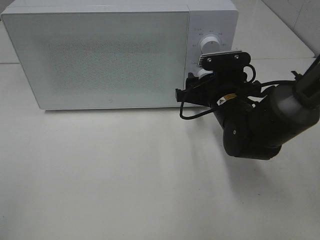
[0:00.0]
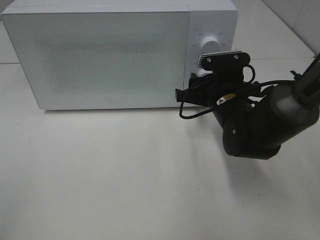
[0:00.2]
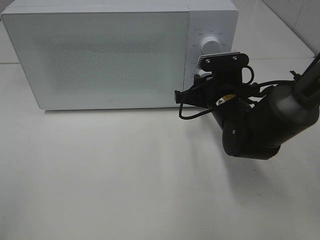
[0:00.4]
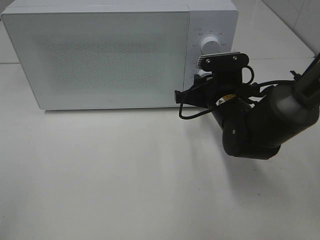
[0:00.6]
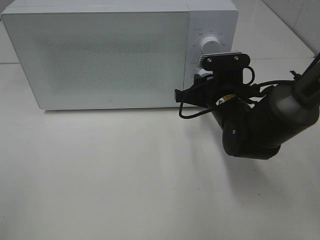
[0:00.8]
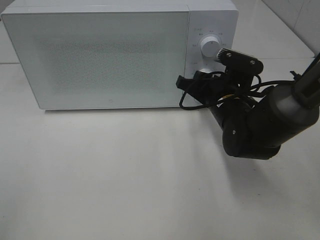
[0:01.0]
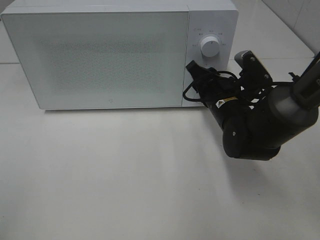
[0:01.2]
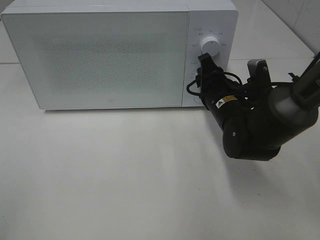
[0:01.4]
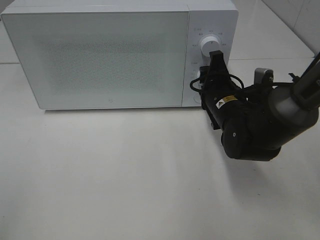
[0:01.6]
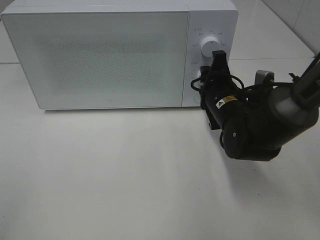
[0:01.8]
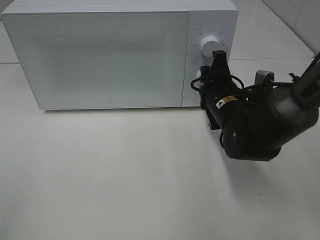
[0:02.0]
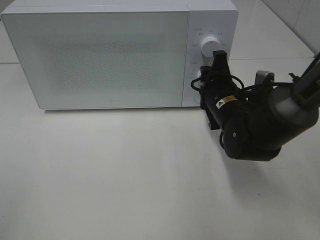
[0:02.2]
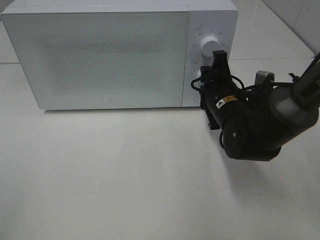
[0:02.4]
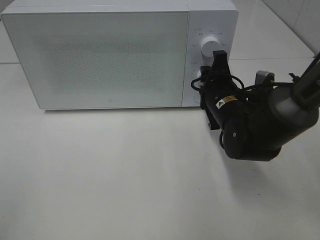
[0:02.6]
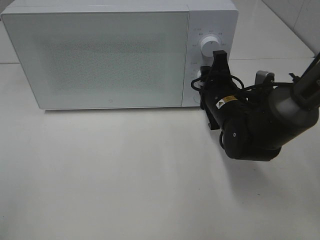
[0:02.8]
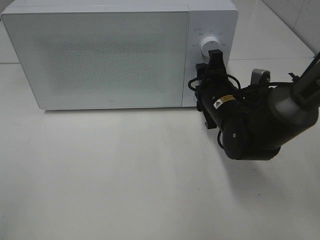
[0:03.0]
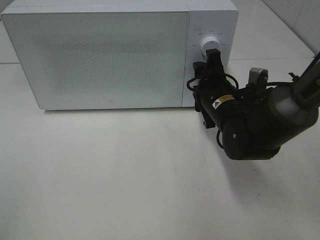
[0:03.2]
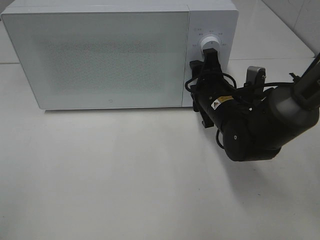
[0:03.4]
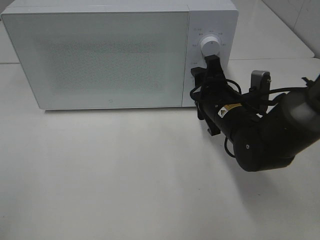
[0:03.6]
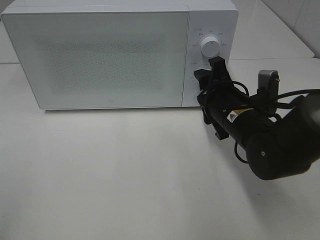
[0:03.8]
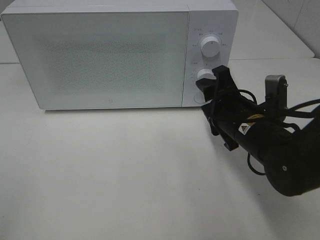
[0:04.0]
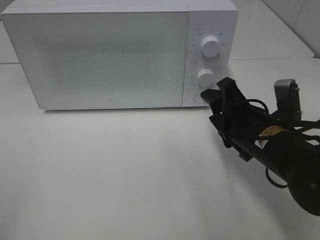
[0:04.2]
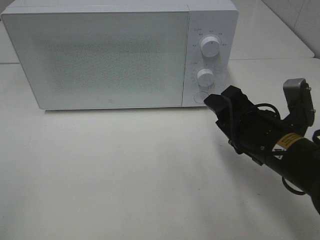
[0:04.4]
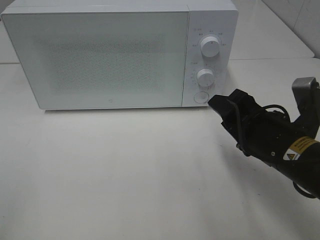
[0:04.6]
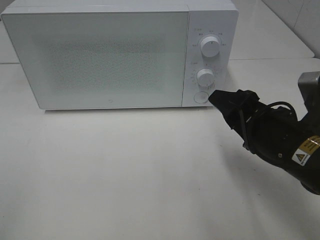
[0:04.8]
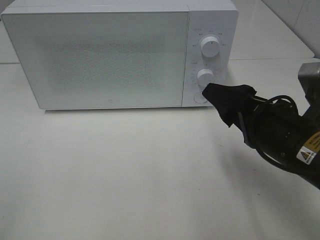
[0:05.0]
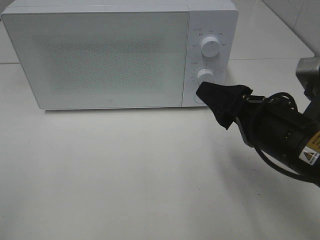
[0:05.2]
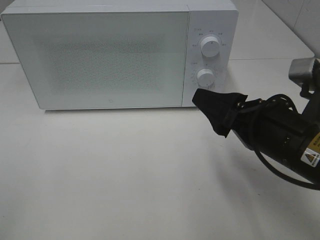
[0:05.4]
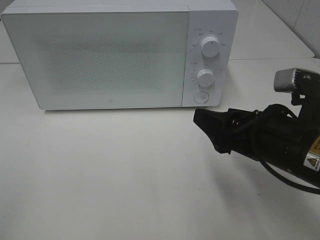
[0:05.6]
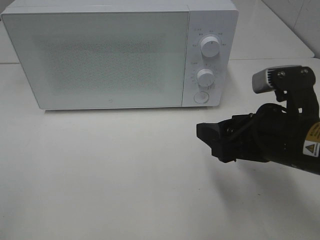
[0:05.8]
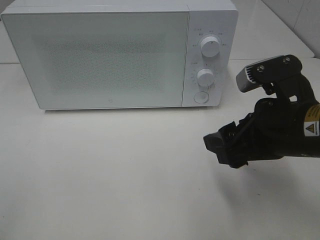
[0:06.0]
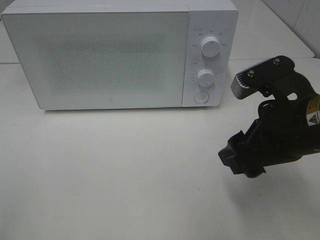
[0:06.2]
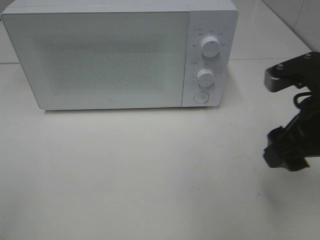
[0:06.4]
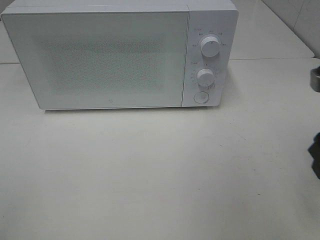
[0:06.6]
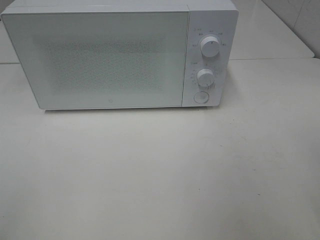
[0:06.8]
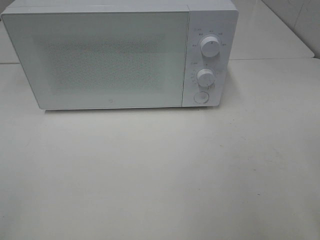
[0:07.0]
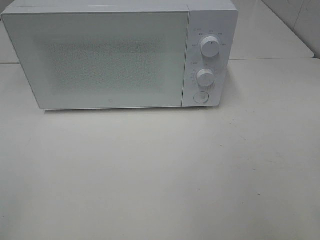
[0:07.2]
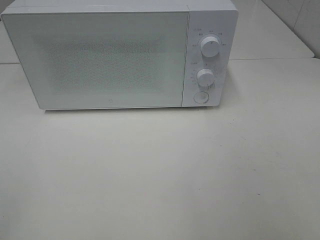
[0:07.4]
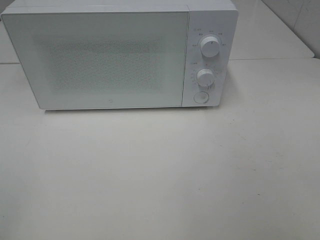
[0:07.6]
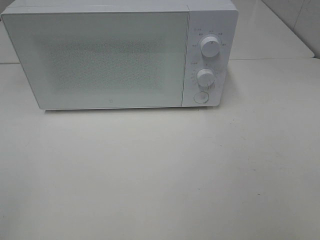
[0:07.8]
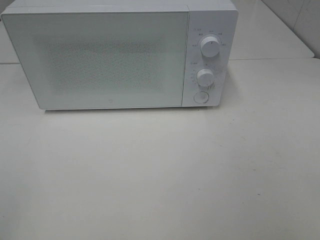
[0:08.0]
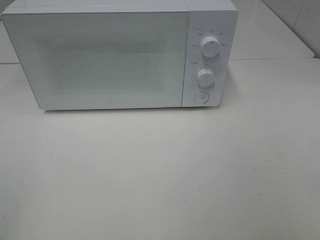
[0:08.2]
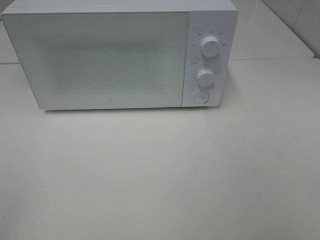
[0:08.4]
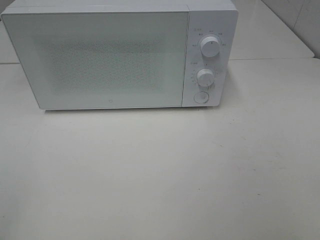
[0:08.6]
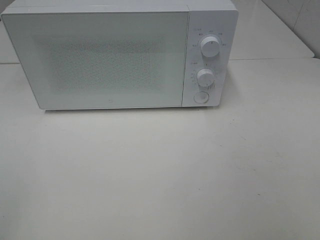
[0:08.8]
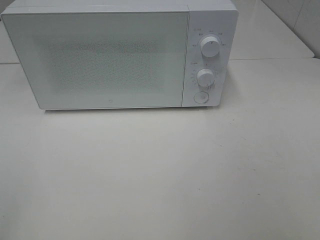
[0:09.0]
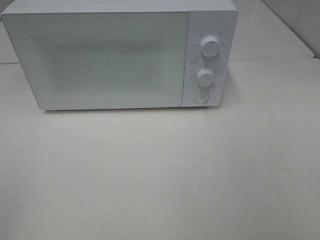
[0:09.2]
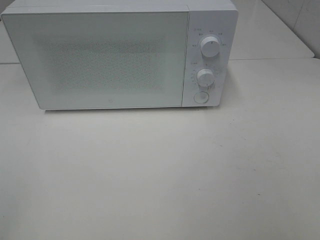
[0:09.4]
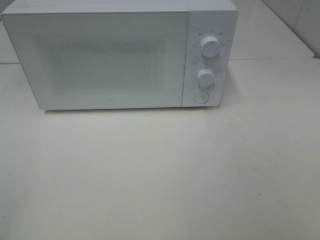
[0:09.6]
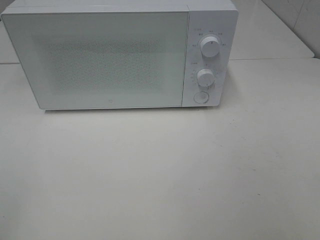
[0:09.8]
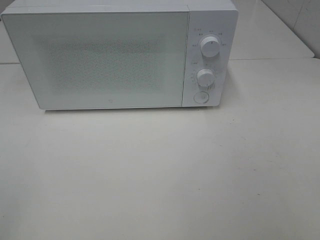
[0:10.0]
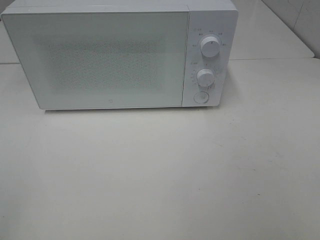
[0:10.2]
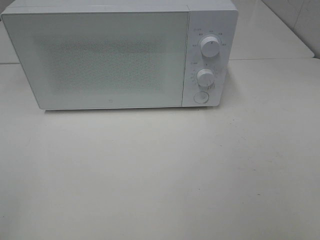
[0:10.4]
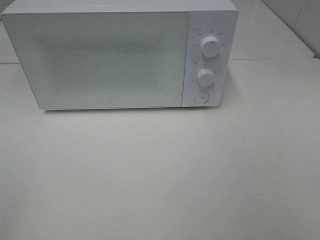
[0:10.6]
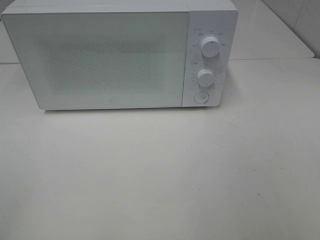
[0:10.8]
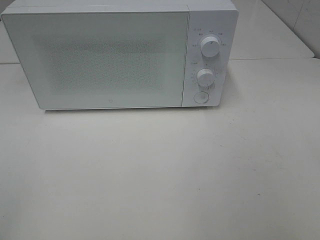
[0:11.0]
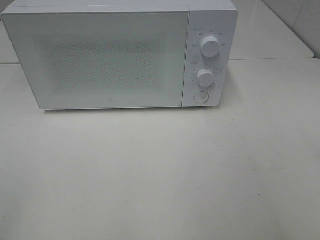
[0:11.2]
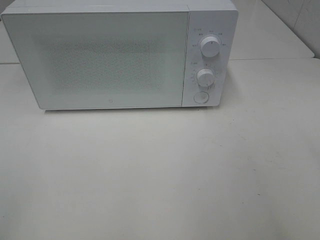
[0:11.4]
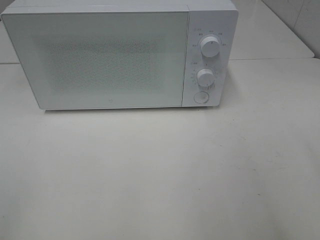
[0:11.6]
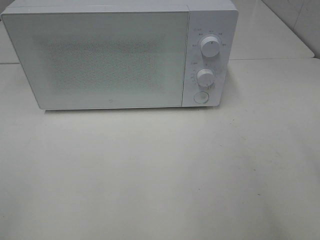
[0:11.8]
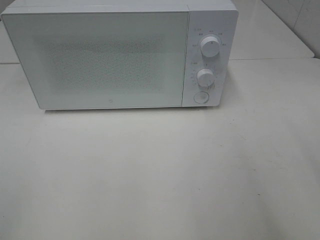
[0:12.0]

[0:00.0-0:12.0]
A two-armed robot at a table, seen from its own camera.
Task of the whole recording: Heat Sandwich.
Step, 0:00.0 to 0:03.8: Right hand: twist timer button.
0:00.0 to 0:01.6: The right gripper closes.
0:01.6 to 0:03.0: The two grippers keep their place.
0:03.0 to 0:04.4: The right gripper moves backward, approximately 10 cm.
0:04.4 to 0:06.0: The right gripper travels upward by about 5 cm.
0:06.0 to 0:07.6: The right gripper travels backward, to the right and upward by roughly 20 cm.
0:09.0 to 0:10.4: The two grippers keep their place.

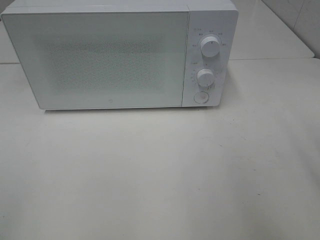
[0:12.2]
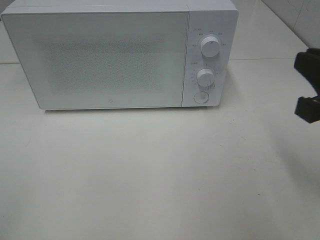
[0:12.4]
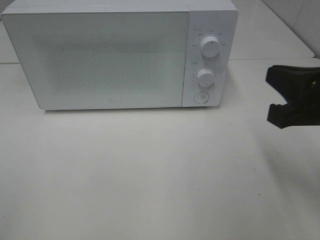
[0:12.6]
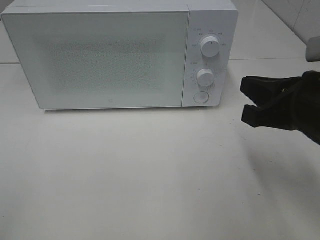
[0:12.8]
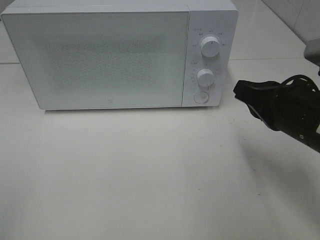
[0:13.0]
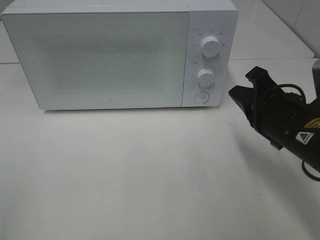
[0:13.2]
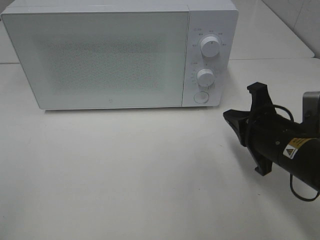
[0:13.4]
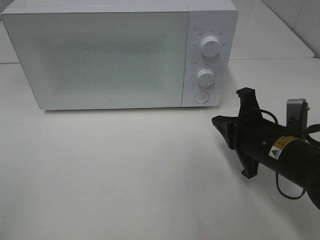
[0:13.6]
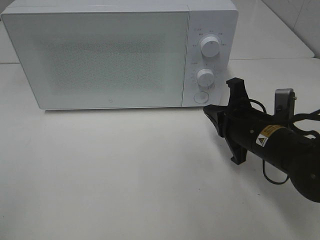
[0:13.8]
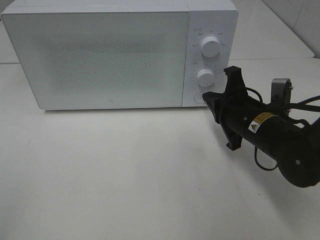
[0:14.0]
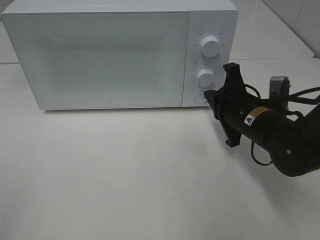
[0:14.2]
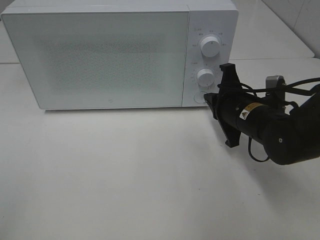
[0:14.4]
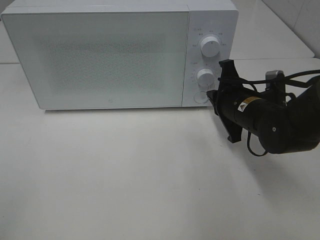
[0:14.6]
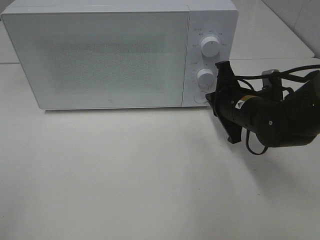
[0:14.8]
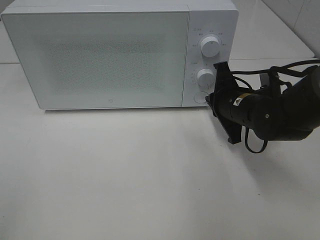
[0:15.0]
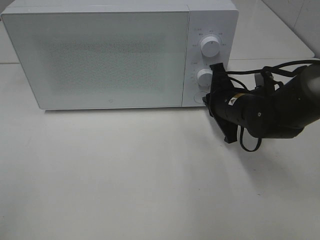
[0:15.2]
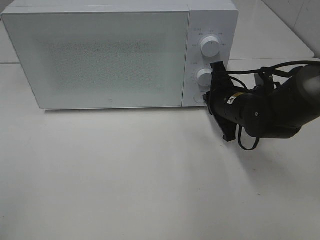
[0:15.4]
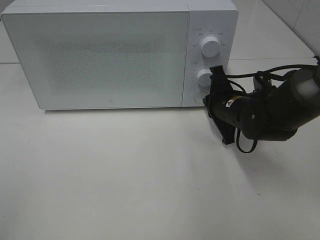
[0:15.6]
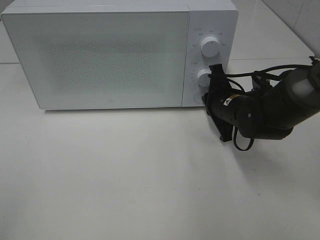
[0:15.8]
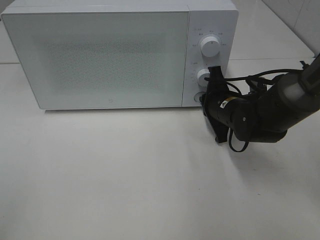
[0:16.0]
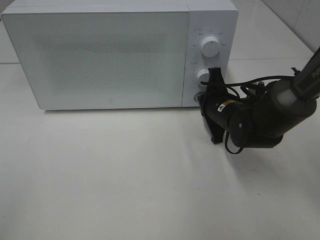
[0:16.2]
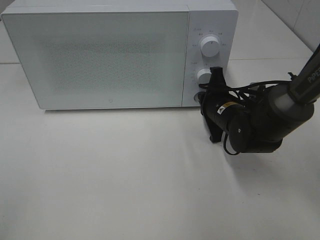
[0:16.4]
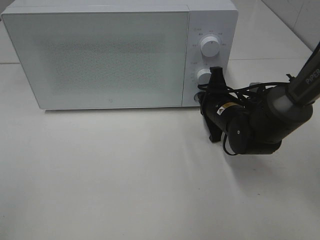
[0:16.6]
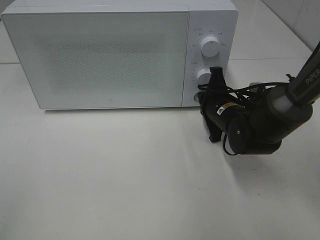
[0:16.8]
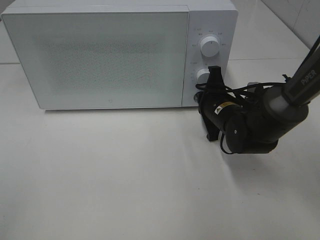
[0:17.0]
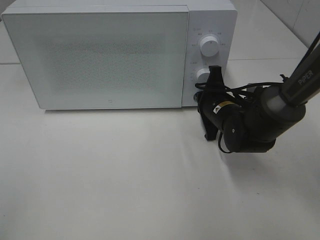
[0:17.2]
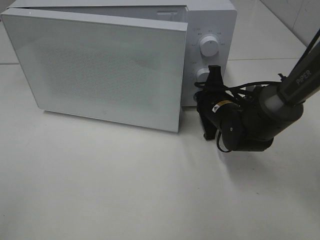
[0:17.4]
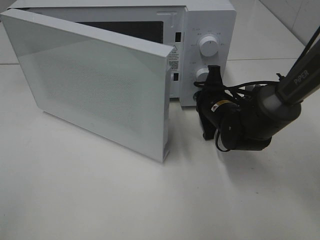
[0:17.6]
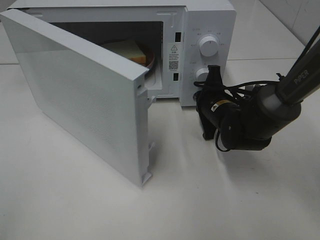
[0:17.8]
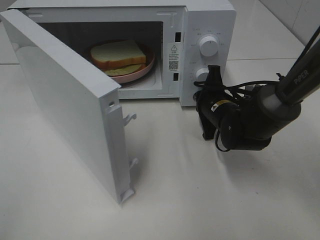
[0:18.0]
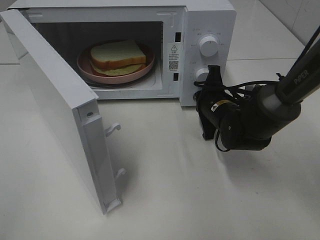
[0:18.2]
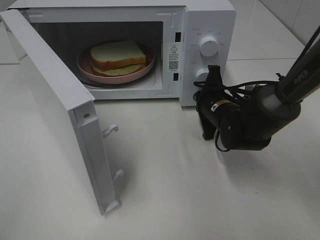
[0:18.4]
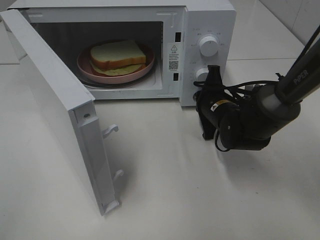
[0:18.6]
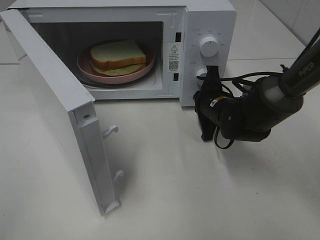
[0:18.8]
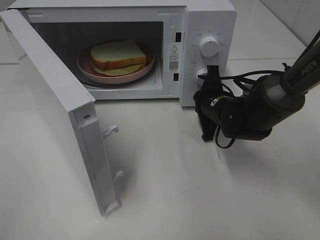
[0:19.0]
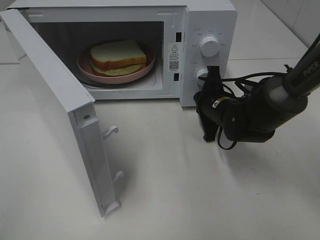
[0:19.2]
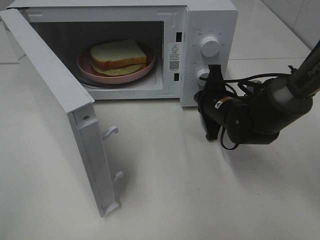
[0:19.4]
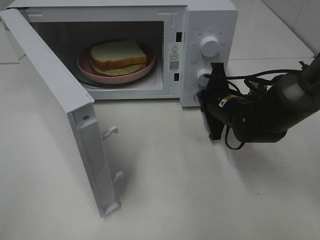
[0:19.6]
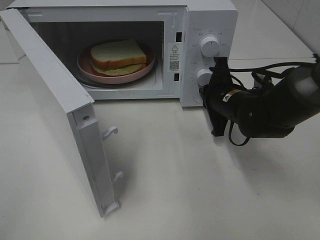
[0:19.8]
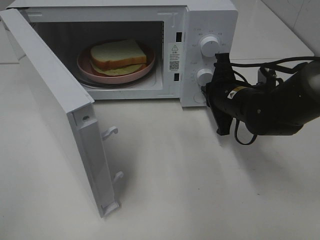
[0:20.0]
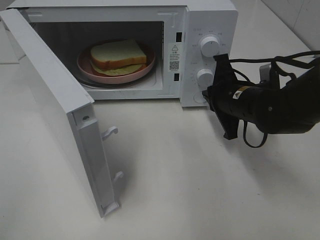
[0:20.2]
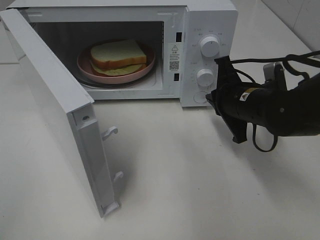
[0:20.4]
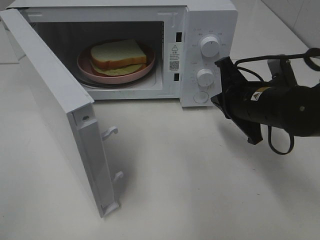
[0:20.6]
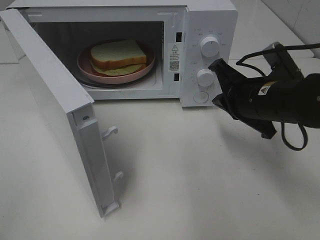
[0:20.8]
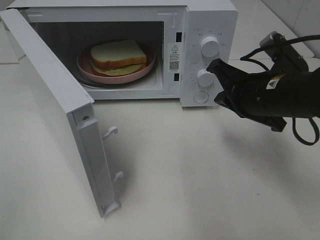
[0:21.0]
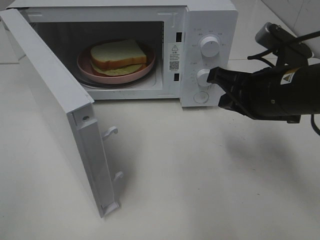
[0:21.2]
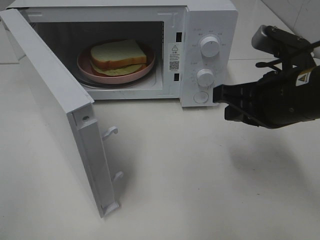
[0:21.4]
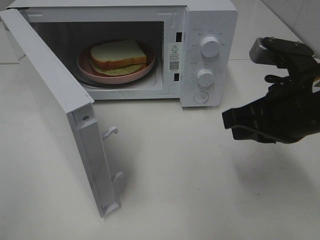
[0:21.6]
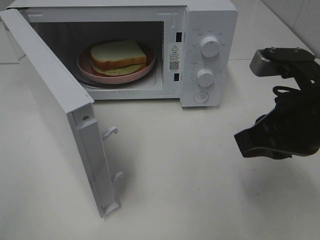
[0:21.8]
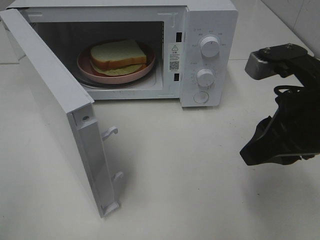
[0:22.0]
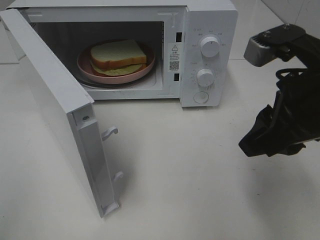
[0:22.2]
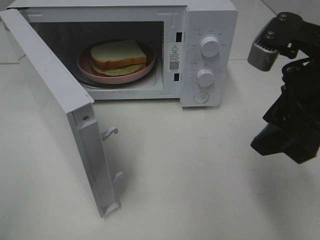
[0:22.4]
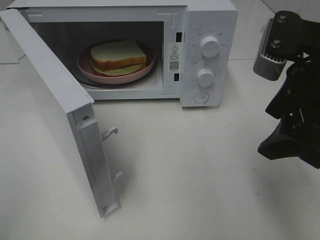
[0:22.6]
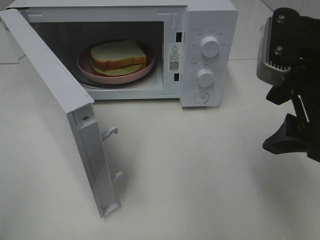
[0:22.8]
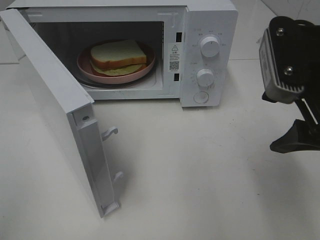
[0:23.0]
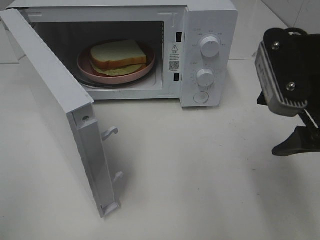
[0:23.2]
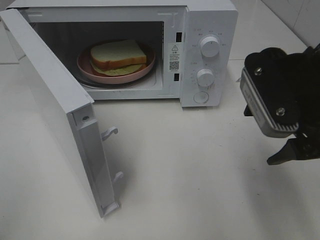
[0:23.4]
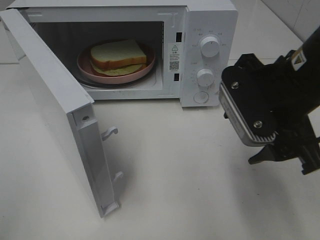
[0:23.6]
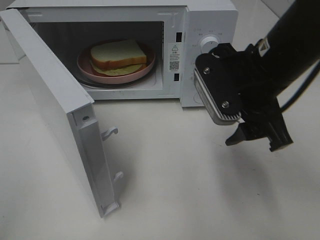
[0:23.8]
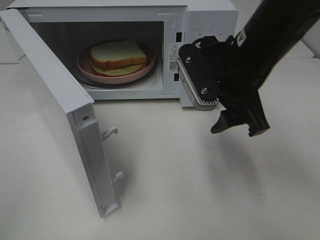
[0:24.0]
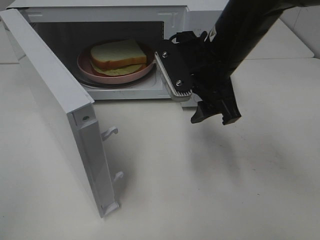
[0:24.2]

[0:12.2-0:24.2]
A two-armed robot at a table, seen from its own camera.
Task of the whole recording: Heat Sandwich.
Step, 0:12.2 to 0:20.6: Right hand: press the switch.
0:12.2 to 0:13.8: The right gripper heads downward, forward and to the left, covering some 20 cm, and closes its fingers.
0:13.8 to 0:15.2: The right gripper is displaced forward by some 10 cm.
0:15.2 to 0:16.6: There are only small adjustments of the grippers.
0:18.2 to 0:19.8: The grippers move only a little.
0:19.8 to 0:21.2: The right gripper is displaced upward and backward by roughly 15 cm.
0:21.2 to 0:22.6: The right gripper goes about 10 cm upward and backward, and opens up.
0:22.6 to 0:24.2: The right gripper moves forward and to the left, roughly 15 cm.
